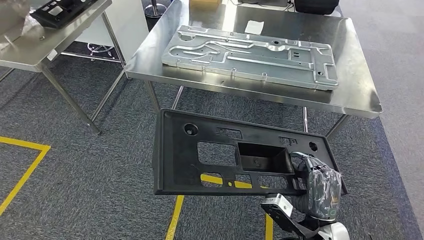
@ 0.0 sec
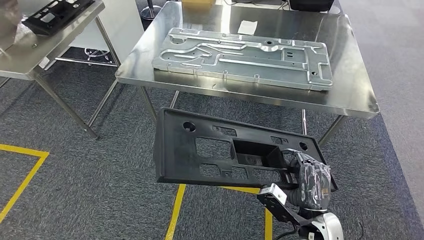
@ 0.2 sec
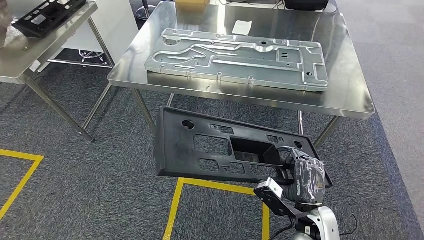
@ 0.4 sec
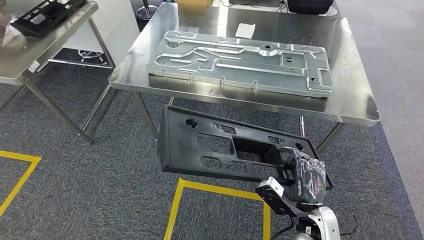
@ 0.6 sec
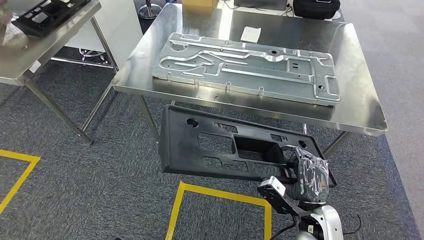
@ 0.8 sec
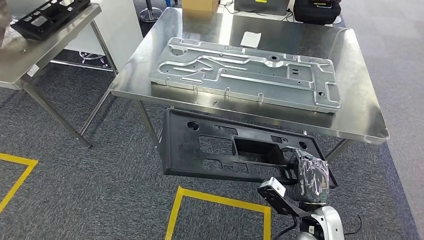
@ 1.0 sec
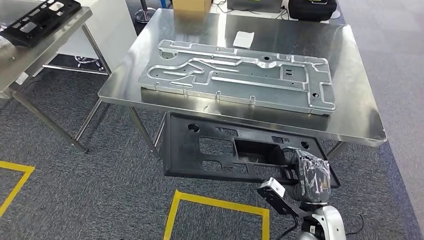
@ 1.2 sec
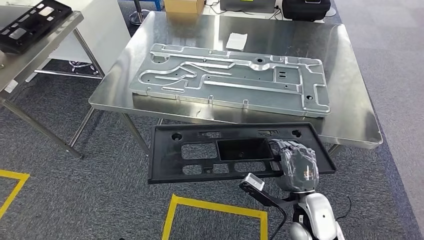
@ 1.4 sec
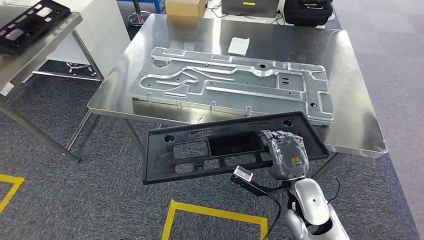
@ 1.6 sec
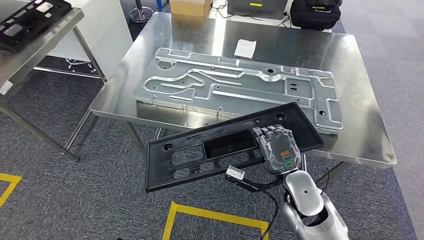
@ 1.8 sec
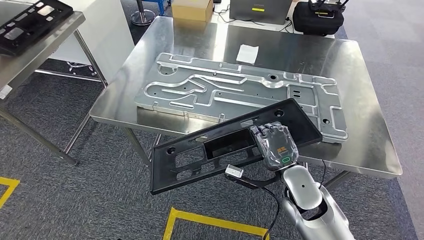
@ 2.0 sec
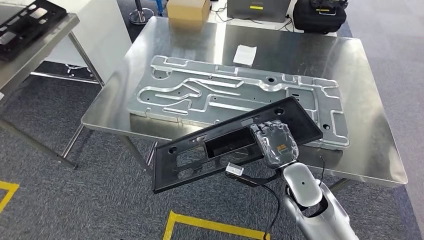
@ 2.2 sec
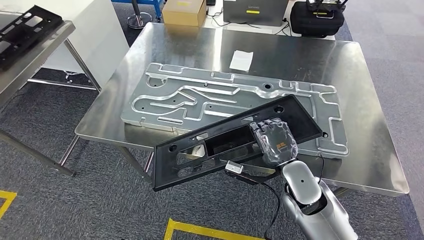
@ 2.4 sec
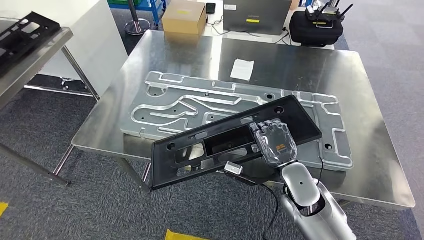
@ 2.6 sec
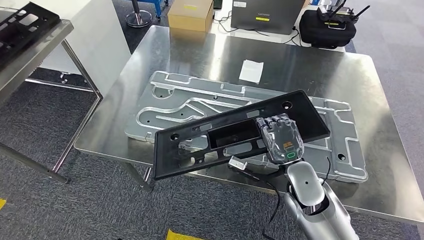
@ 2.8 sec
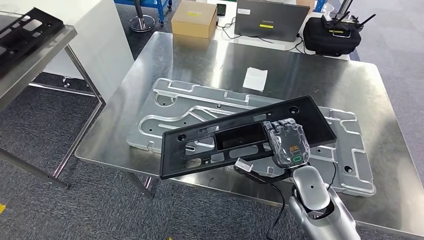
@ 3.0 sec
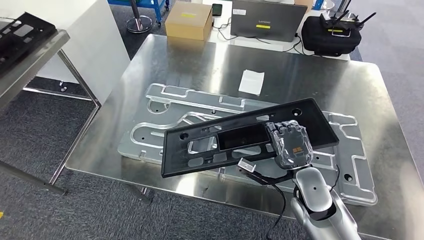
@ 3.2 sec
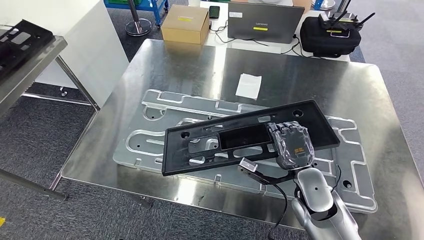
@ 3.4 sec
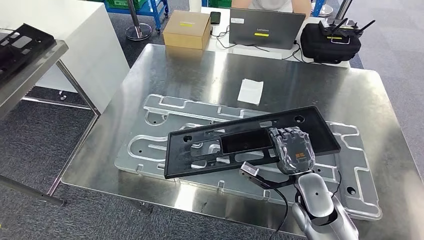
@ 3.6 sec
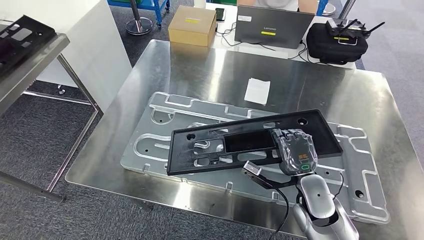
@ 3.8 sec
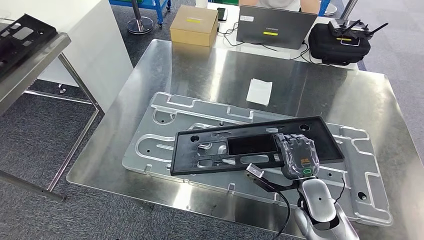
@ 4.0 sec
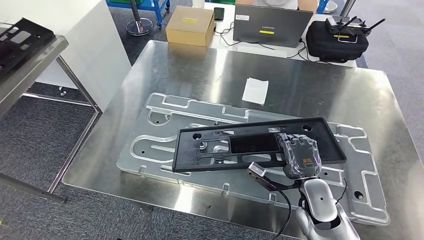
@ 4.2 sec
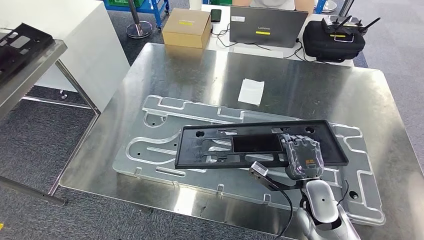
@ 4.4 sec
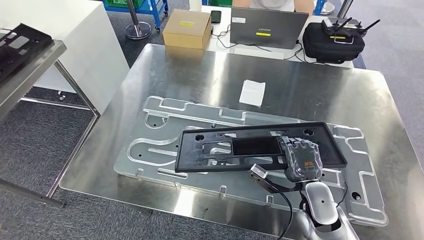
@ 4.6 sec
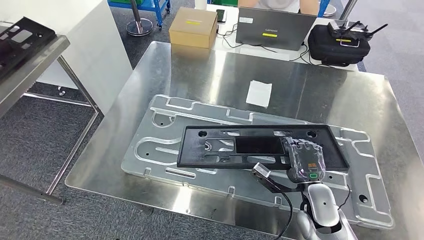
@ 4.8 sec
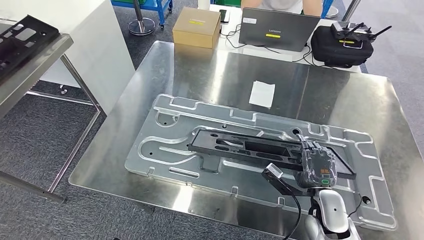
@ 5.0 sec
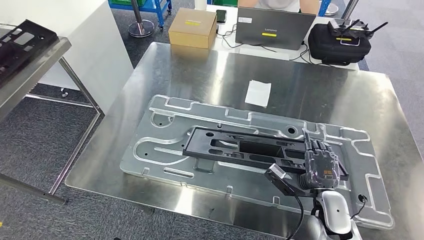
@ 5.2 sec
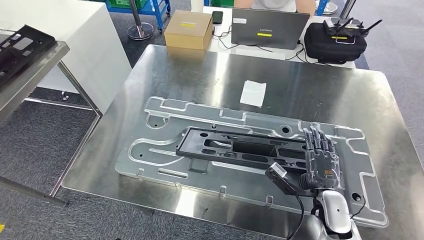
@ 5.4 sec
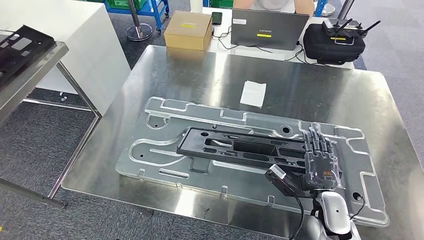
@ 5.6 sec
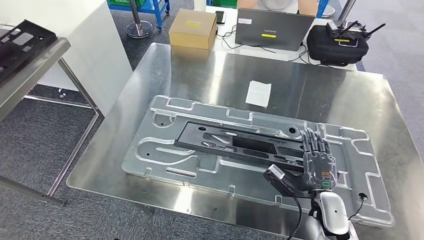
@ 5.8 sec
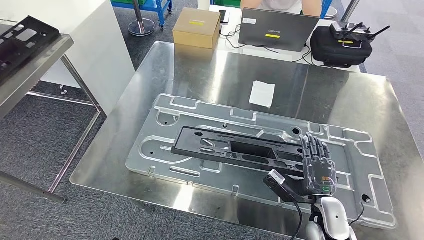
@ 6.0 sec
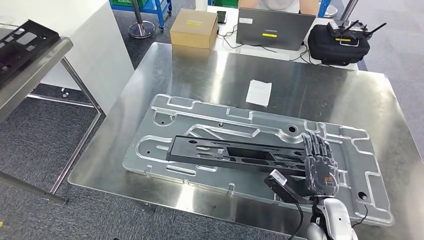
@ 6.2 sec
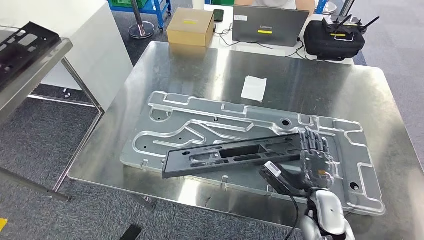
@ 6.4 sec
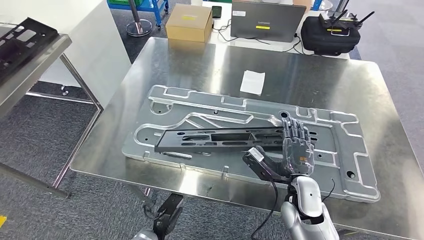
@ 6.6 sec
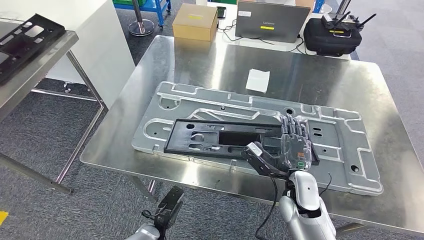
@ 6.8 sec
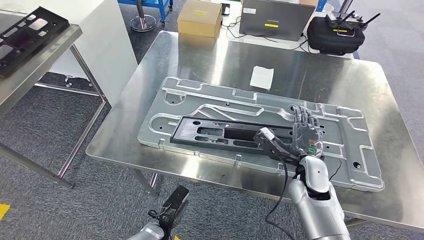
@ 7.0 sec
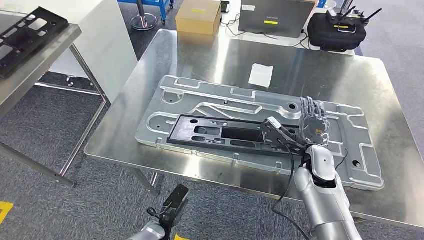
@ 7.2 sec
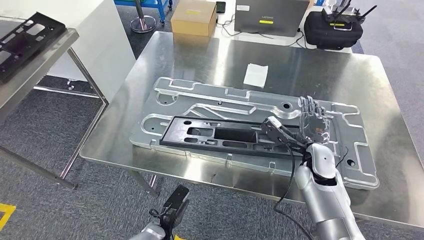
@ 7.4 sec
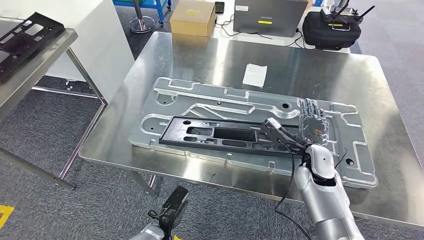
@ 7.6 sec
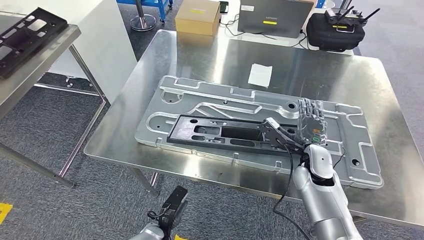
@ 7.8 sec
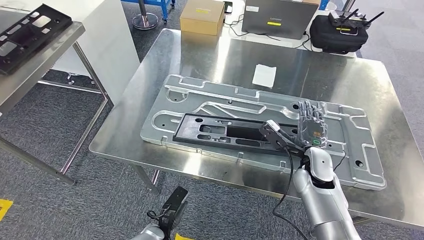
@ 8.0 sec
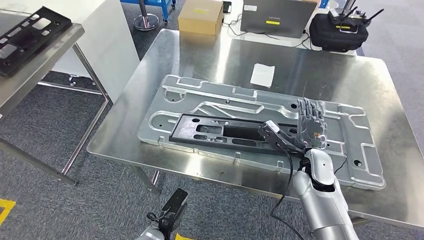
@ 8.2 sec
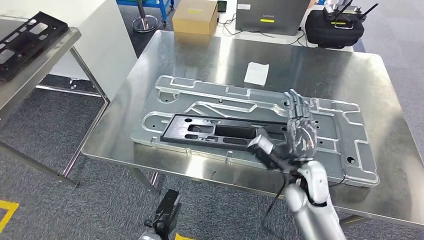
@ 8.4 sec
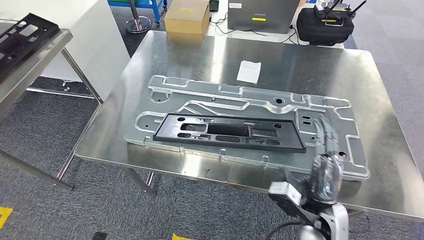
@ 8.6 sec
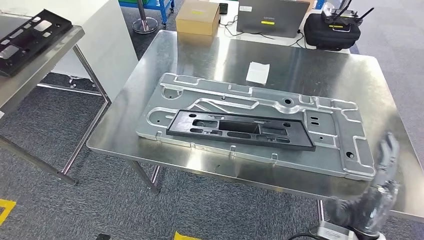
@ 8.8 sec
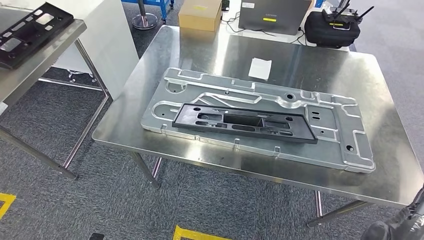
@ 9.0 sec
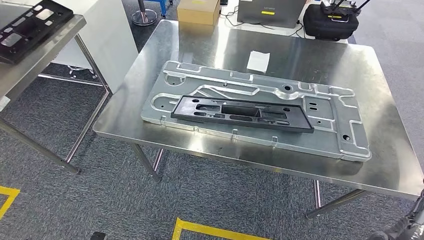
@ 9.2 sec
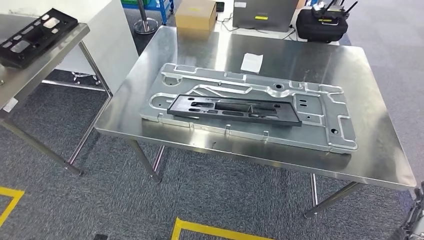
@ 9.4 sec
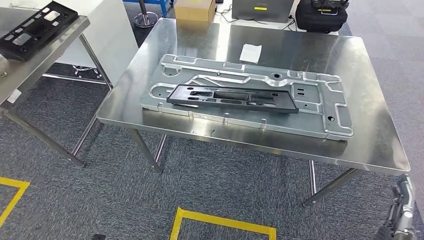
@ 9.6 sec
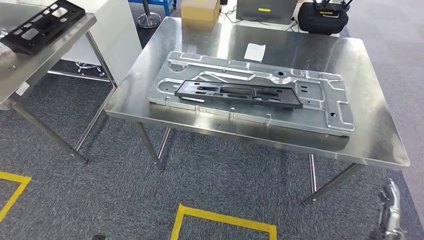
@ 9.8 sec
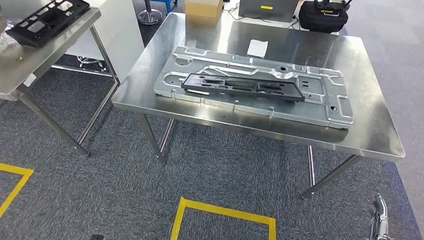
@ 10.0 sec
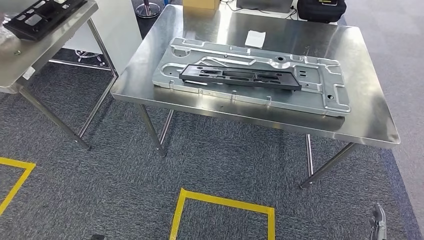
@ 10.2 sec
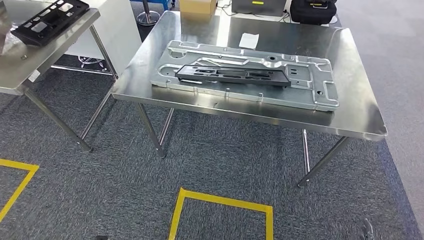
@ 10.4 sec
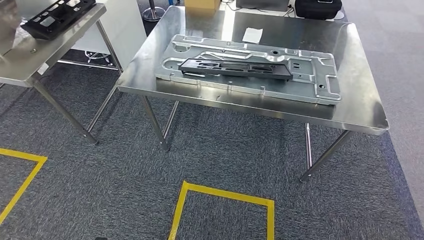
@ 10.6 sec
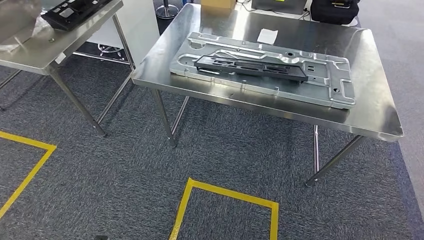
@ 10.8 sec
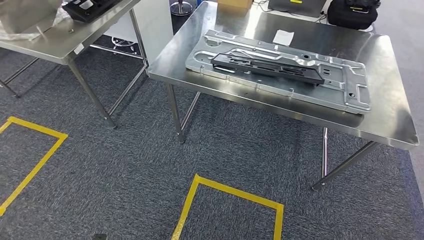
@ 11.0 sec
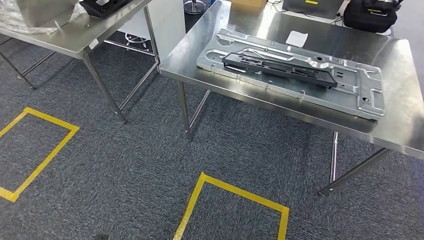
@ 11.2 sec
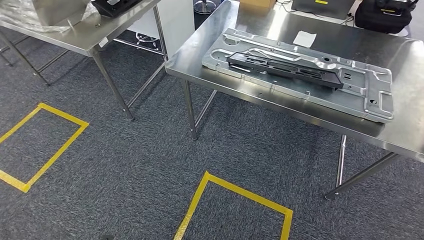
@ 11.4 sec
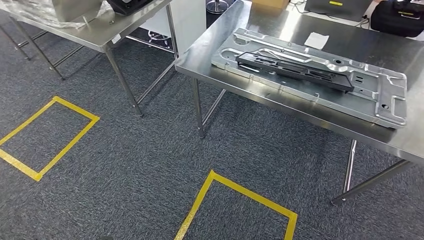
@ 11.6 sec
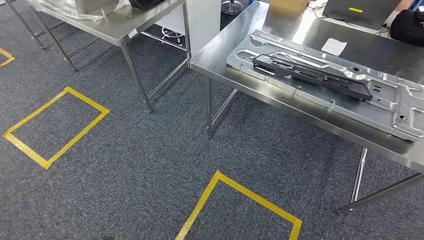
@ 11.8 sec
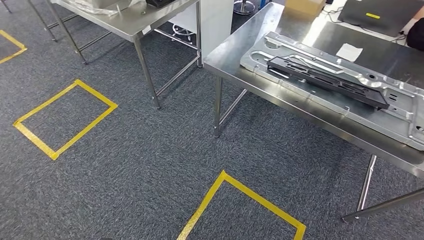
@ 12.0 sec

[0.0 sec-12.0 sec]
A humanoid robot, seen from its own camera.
Step, 1.4 sec to 11.2 sec: Insert the large material into the corresponding slot on the workbench.

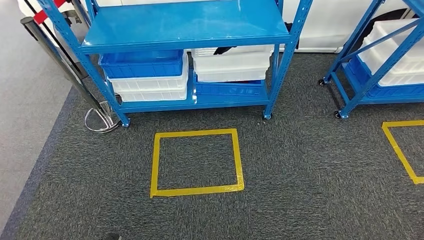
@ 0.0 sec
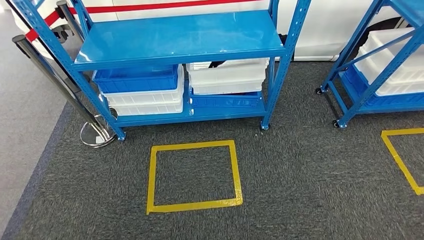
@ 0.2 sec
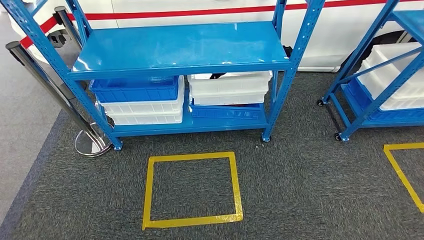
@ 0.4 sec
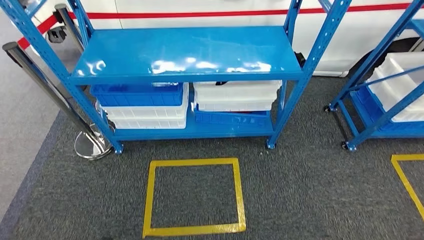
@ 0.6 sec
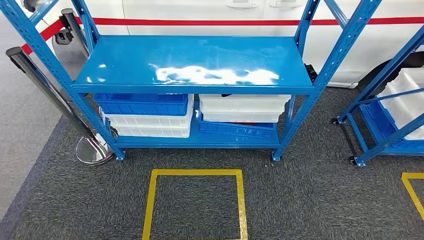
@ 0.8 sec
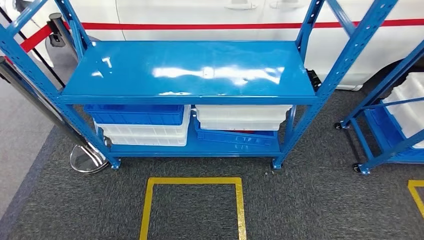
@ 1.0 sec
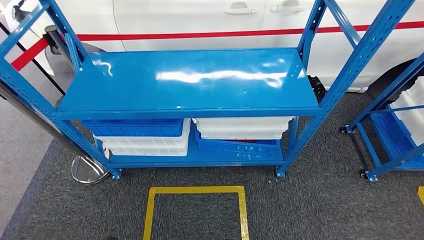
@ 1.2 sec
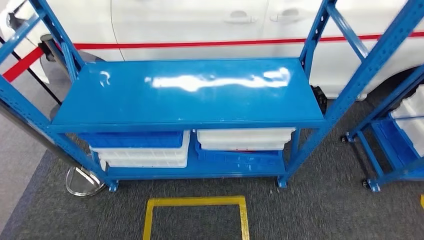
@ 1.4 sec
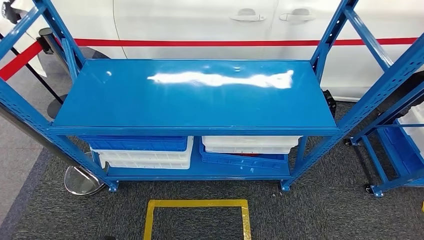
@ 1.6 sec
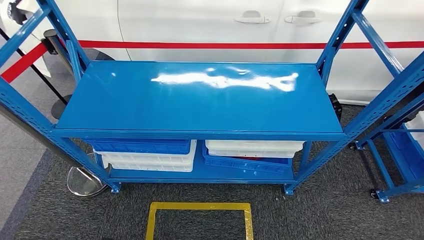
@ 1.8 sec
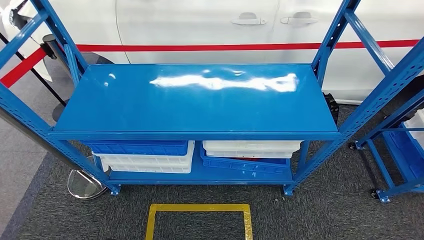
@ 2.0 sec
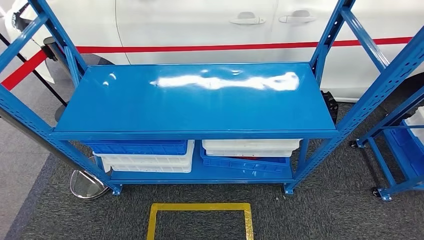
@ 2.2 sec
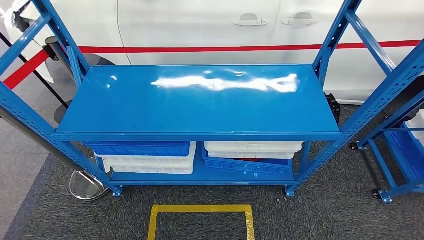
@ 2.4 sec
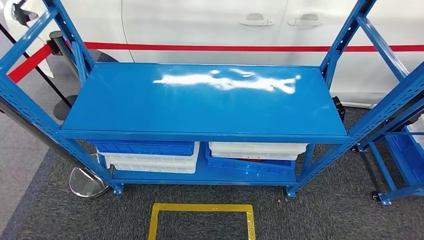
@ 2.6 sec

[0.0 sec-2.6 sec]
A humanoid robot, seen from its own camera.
Step, 0.0 sec to 2.6 sec: Return to the initial position at the shelf.
